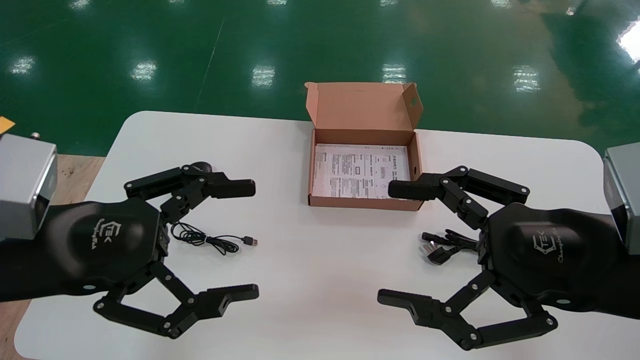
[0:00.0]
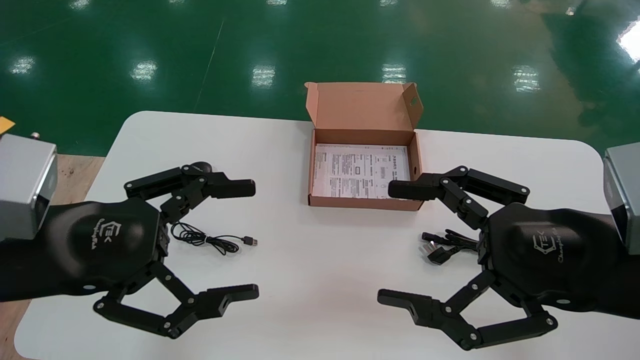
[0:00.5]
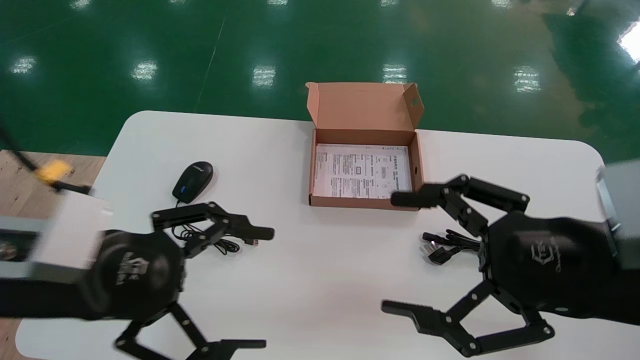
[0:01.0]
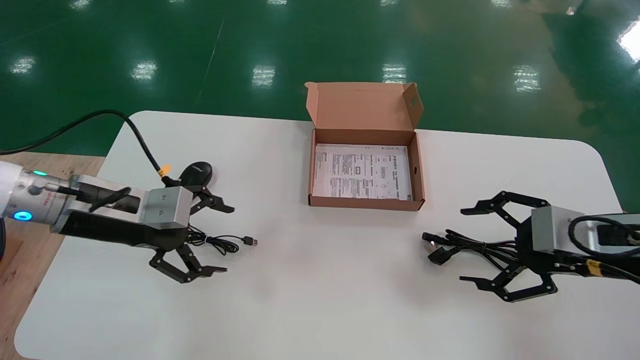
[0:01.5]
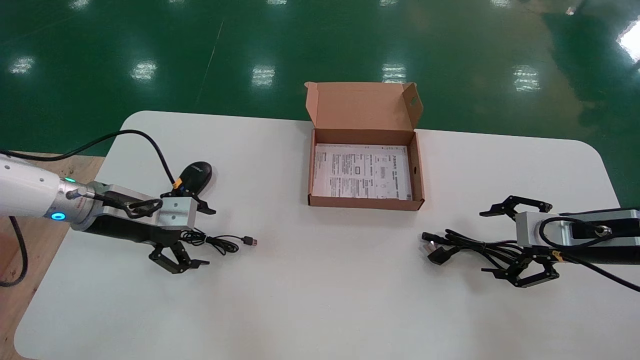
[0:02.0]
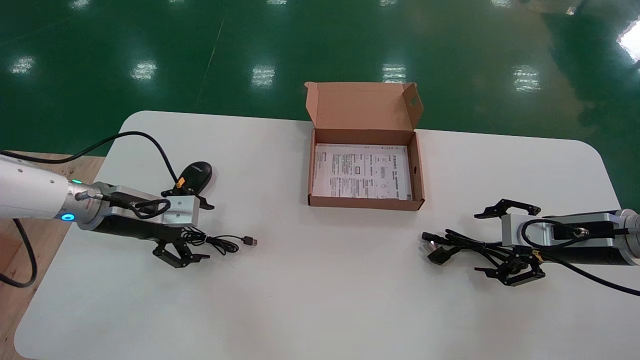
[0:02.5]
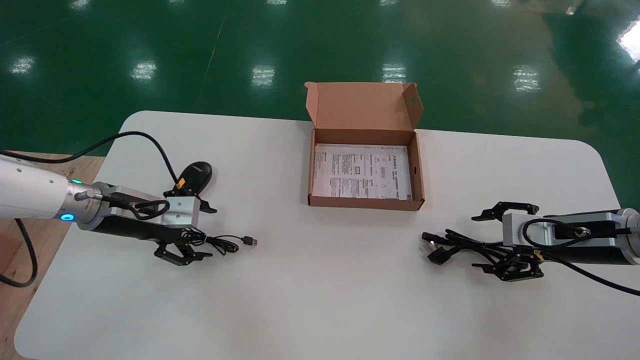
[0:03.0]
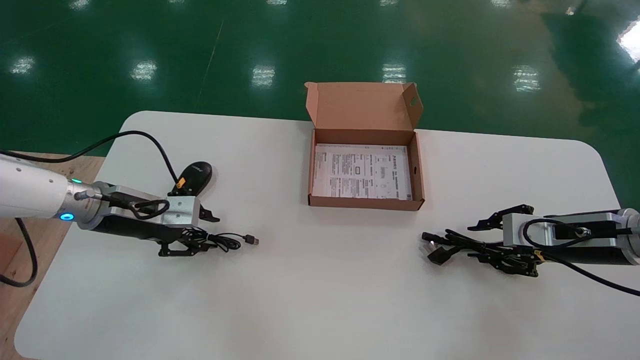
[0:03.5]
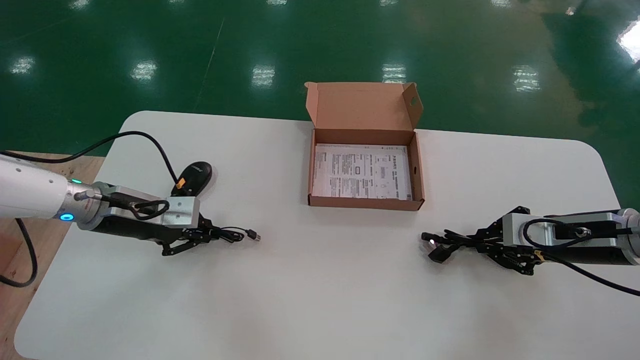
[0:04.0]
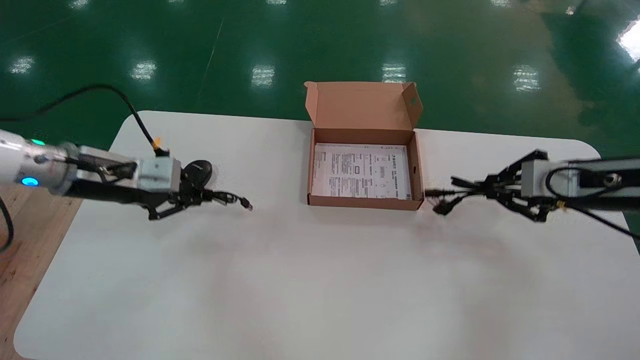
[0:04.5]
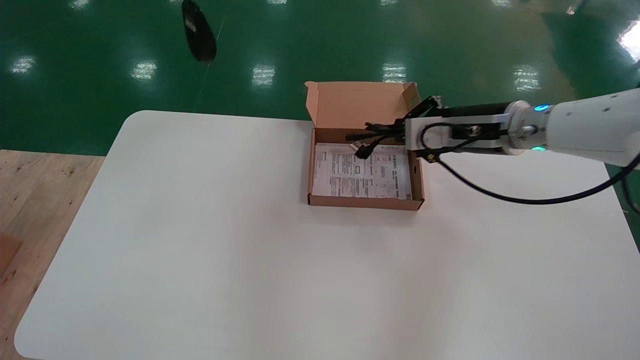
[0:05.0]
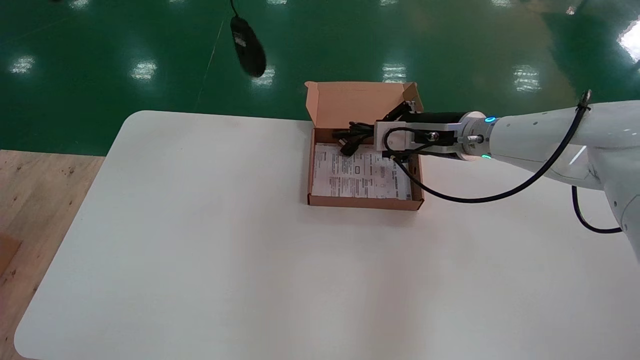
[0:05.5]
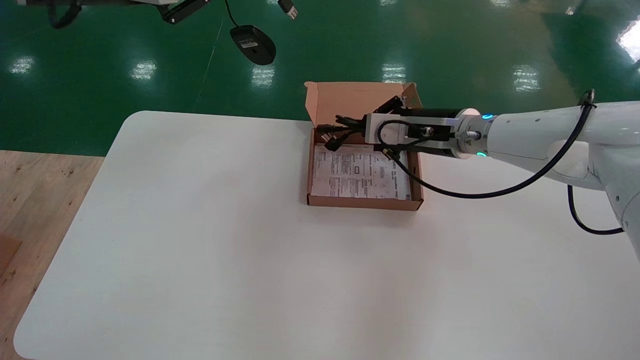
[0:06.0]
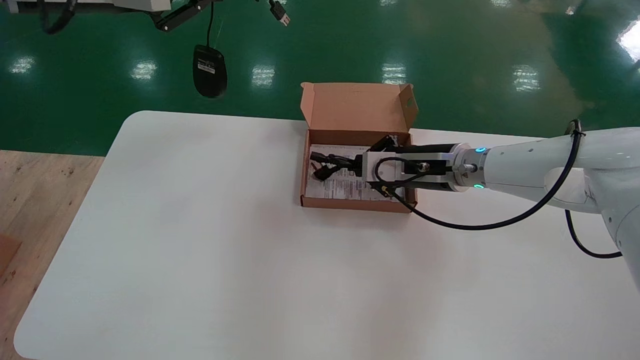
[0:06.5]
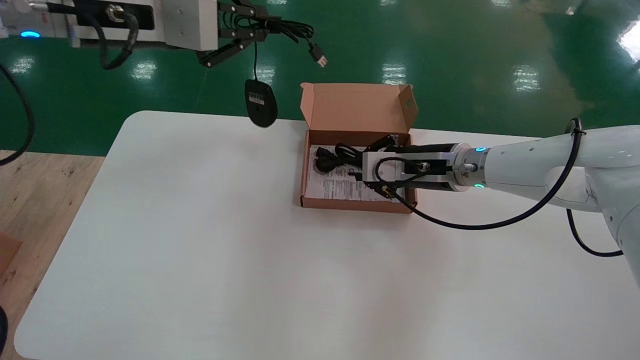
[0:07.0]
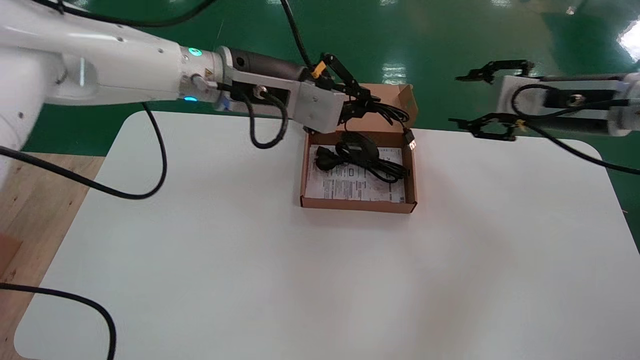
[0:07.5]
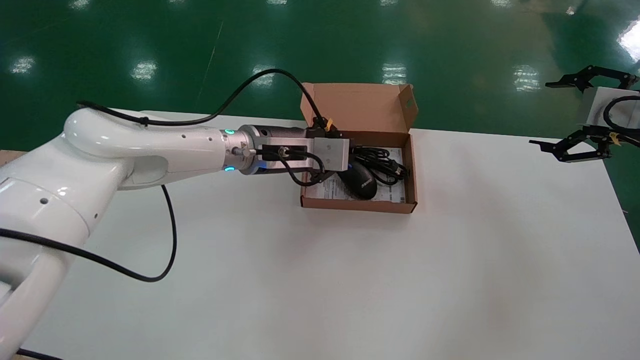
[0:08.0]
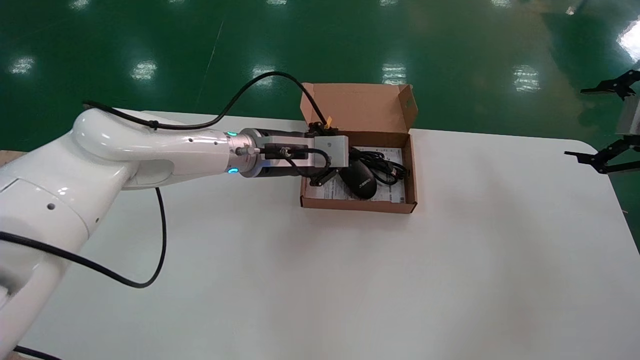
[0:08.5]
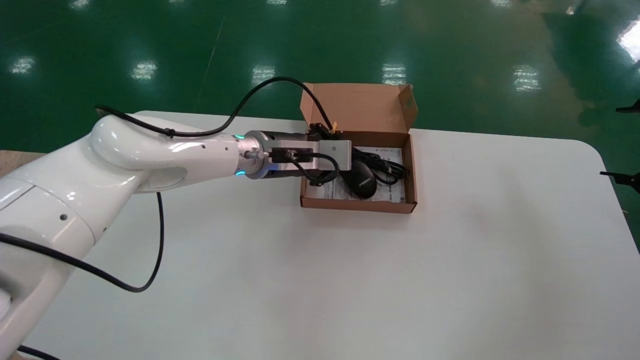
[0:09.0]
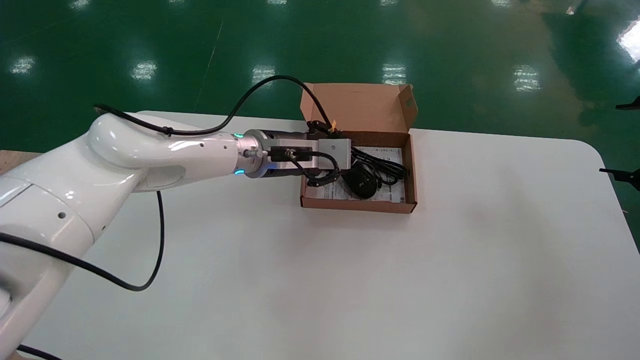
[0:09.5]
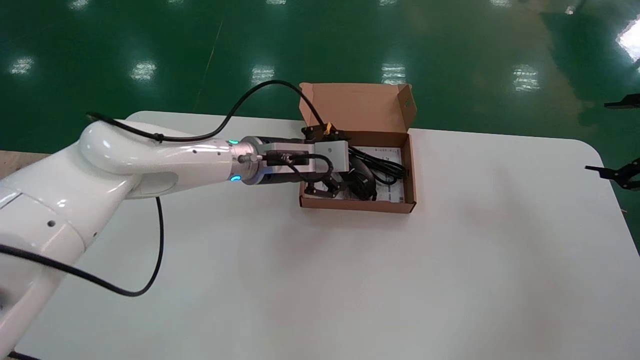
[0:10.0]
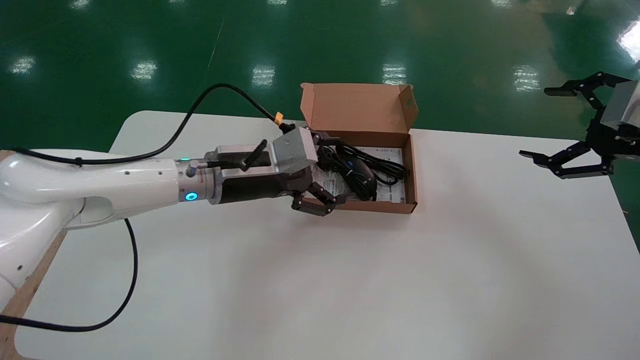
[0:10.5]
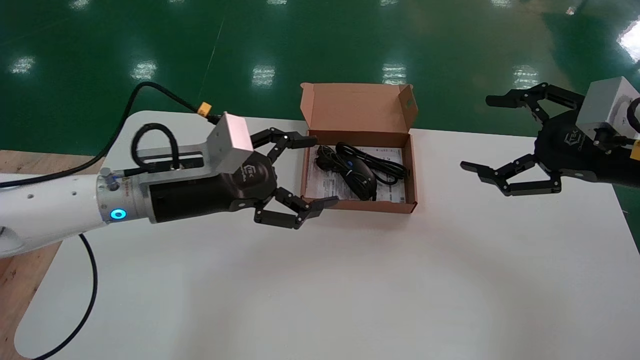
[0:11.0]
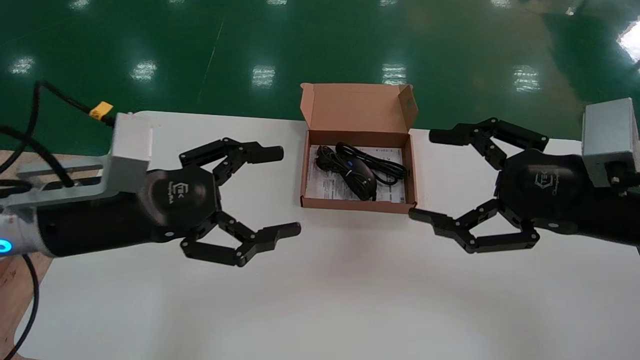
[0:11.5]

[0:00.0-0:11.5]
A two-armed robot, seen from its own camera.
Step, 0:01.0 to 0:04.5: Simultaneously pick up the mouse and power cord from the accessory packaging area.
Step, 0:05.0 to 0:09.5: Place the mouse and power cord into the box.
0:00.0 to 0:02.0: The left gripper heads forward, covering some 20 cm. Meanwhile the right gripper is displaced forward, to the right and downward by some 20 cm.
0:02.0 to 0:04.0: The left gripper closes its fingers, while the right gripper closes.
0:04.0 to 0:06.0: The right gripper heads to the left, forward and upward, covering approximately 25 cm. The left gripper travels upward by approximately 30 cm.
0:06.0 to 0:07.5: The left gripper heads to the right, downward and forward, covering some 20 cm. Meanwhile the right gripper heads to the right and backward, covering about 15 cm, and opens.
0:07.5 to 0:09.5: The right gripper goes about 20 cm to the right and backward, and opens its fingers. The left gripper shifts about 15 cm downward and forward.
0:09.5 to 0:11.5: The left gripper heads backward and to the left, covering about 25 cm, and opens, while the right gripper heads to the left, covering some 20 cm.

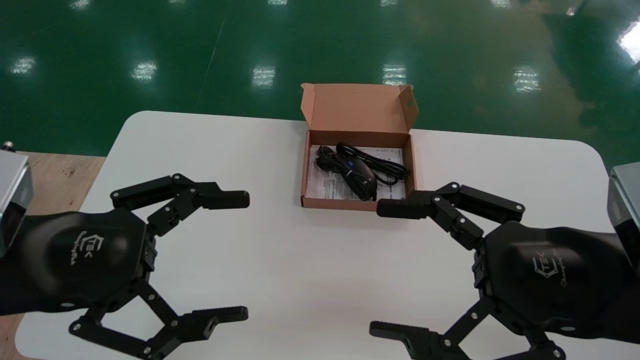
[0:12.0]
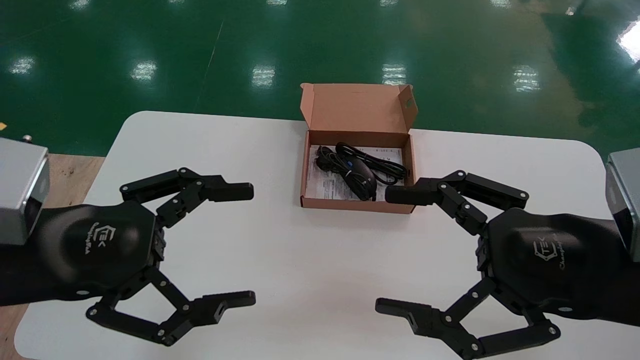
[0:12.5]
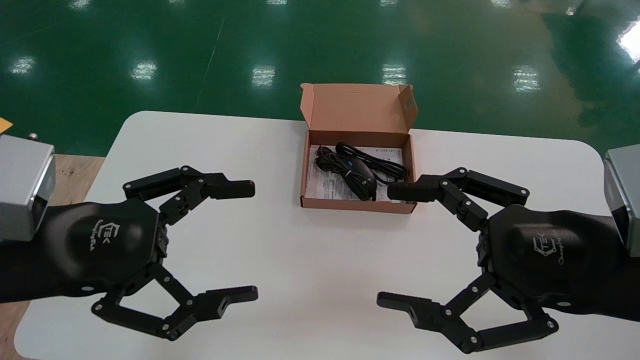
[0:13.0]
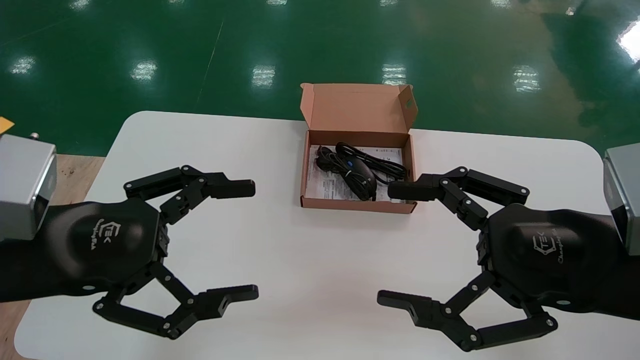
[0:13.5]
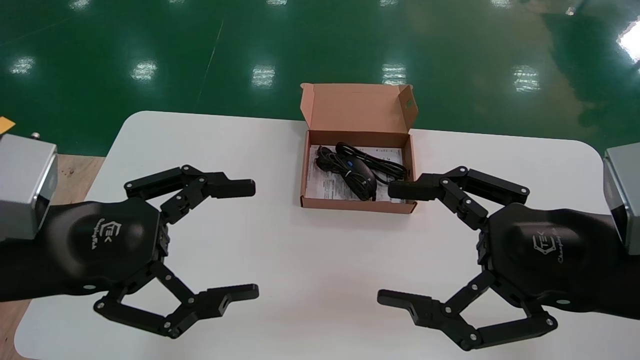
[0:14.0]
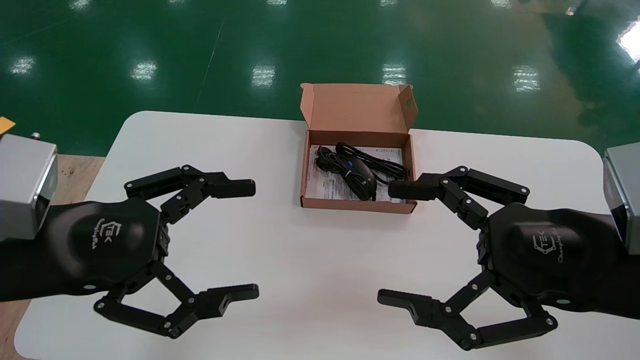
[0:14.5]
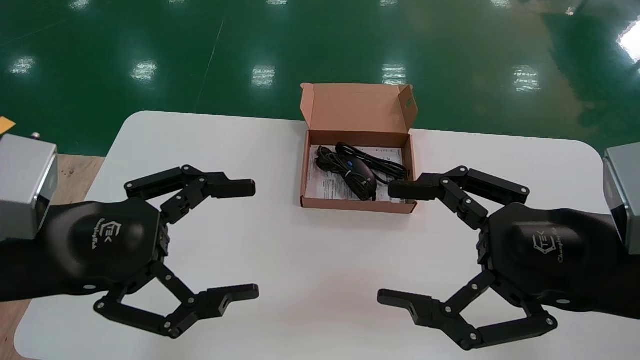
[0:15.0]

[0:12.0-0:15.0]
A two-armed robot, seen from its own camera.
0:13.5 to 0:15.0: The two grippers keep their place.
